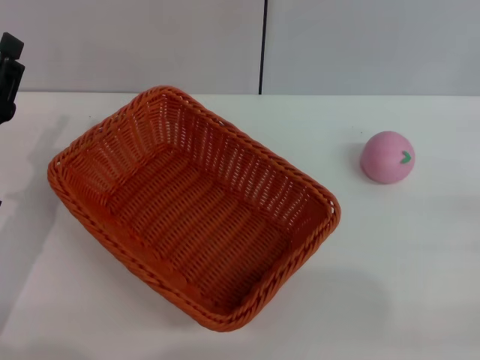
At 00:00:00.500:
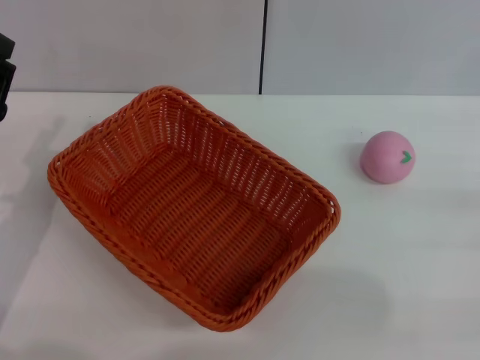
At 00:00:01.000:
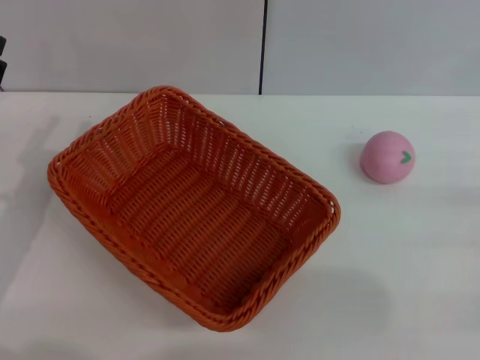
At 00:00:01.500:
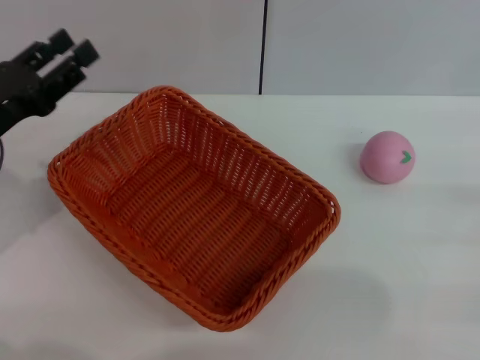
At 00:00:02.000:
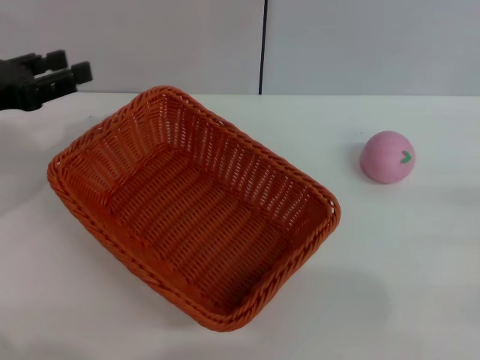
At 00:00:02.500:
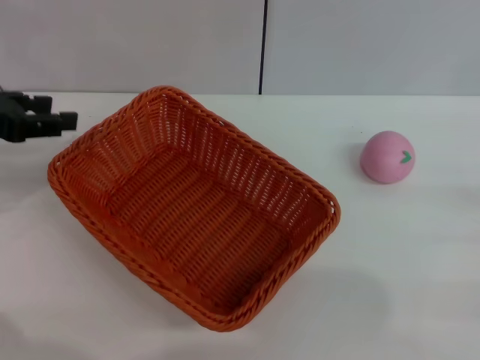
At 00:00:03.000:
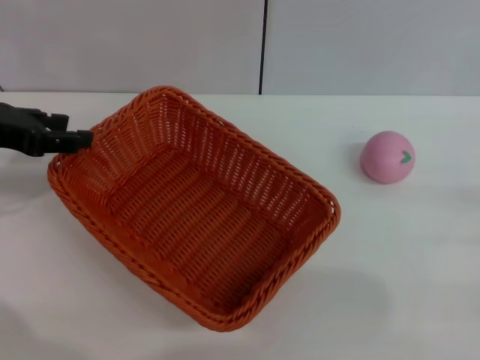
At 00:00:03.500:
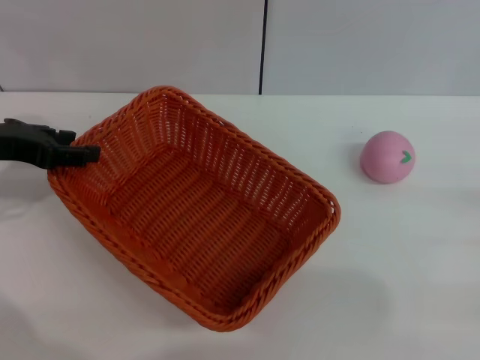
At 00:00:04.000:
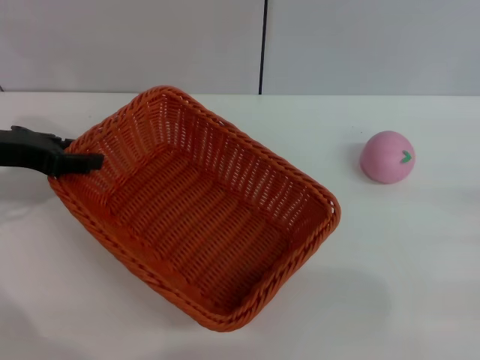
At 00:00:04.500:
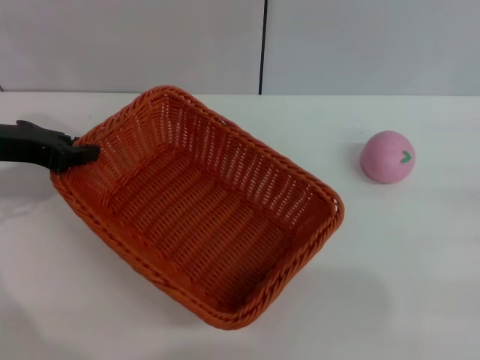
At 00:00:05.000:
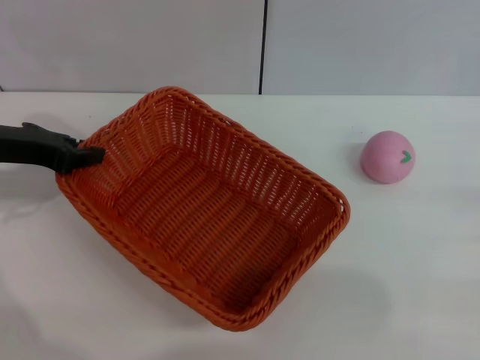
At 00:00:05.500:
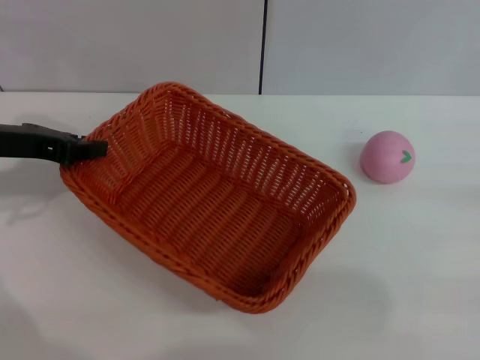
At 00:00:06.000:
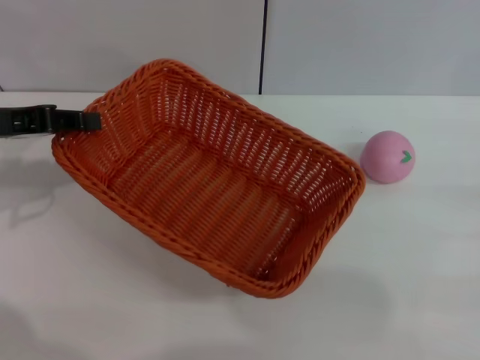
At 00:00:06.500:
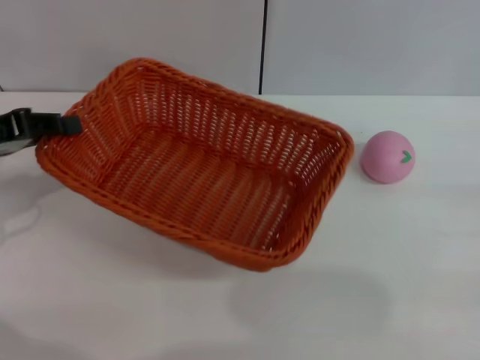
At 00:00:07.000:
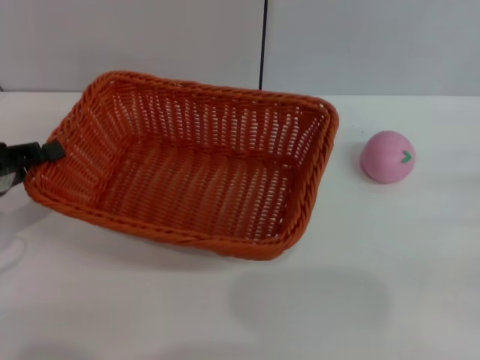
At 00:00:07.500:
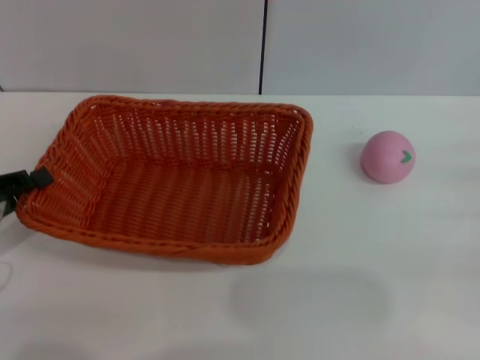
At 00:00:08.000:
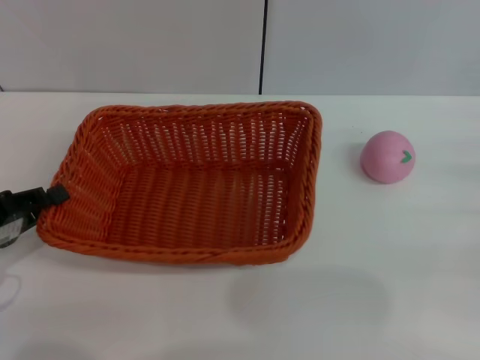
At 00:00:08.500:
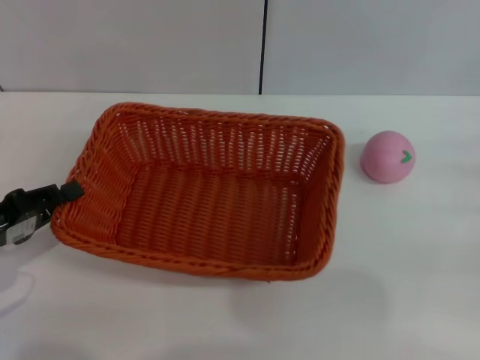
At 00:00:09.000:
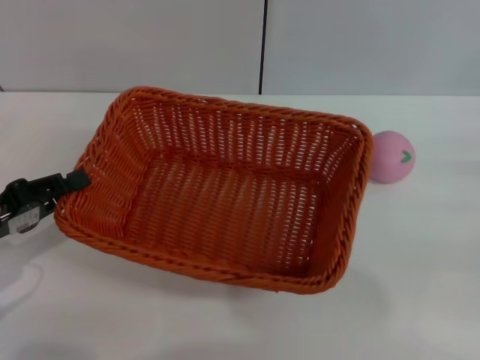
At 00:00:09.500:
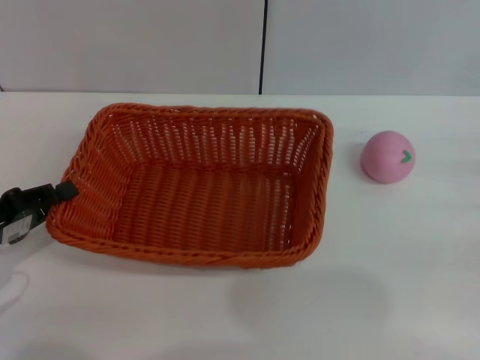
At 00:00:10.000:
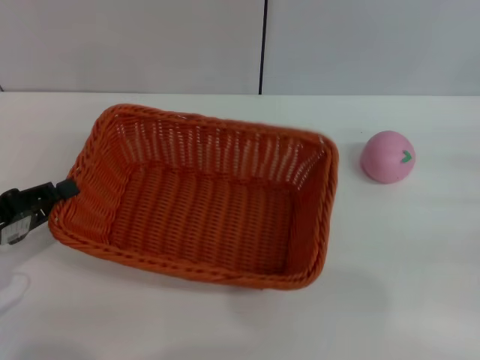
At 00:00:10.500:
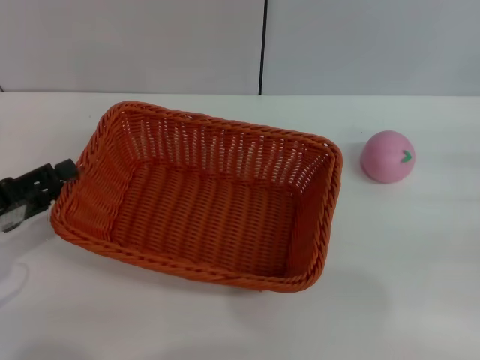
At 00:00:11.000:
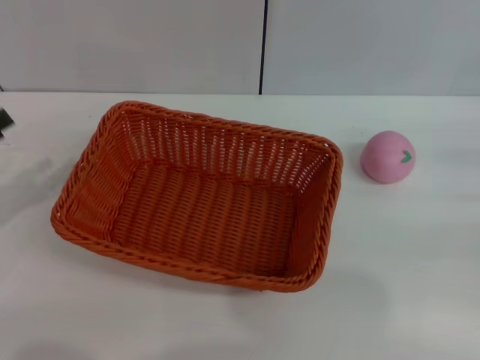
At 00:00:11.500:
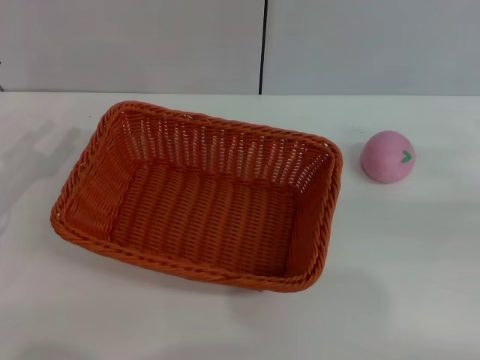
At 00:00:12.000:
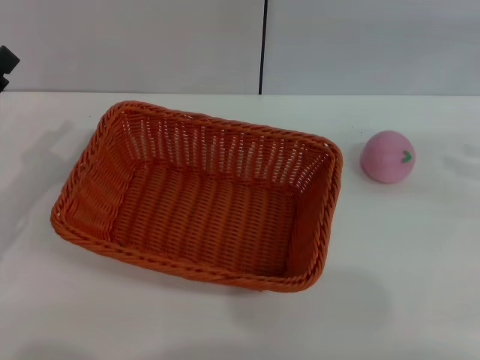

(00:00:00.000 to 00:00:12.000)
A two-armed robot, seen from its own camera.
Step, 00:00:00.000 - 00:00:06.000: Pick up the light basket with the left gripper.
Step, 00:00:06.500 - 00:00:10.500: Place the light basket in the center of view with the right gripper.
00:00:00.000 - 00:00:02.000: The left gripper moves upward and forward, roughly 10 cm.
00:00:04.000 - 00:00:06.000: The left gripper closes.
00:00:06.000 - 00:00:08.000: The left gripper shifts about 15 cm backward and downward.
00:00:08.000 - 00:00:10.000: The grippers stay close to where they were, moving slightly.
00:00:10.000 - 00:00:12.000: The left gripper opens its fingers. Meanwhile the right gripper shifts roughly 15 cm upward and forward.

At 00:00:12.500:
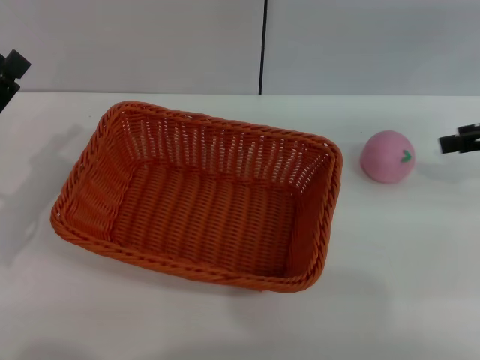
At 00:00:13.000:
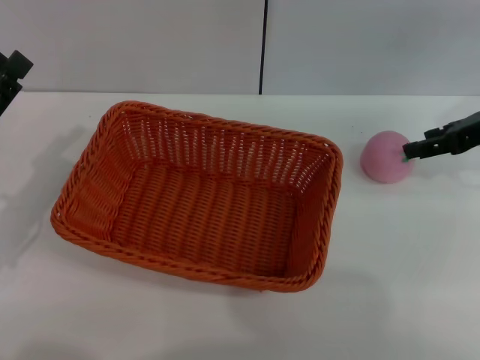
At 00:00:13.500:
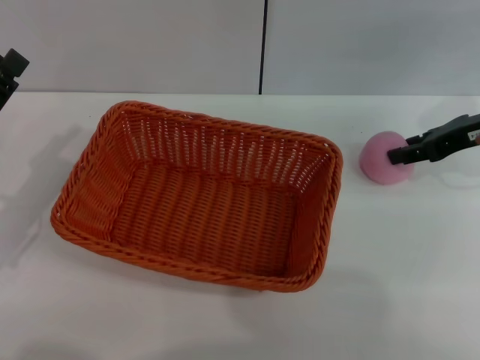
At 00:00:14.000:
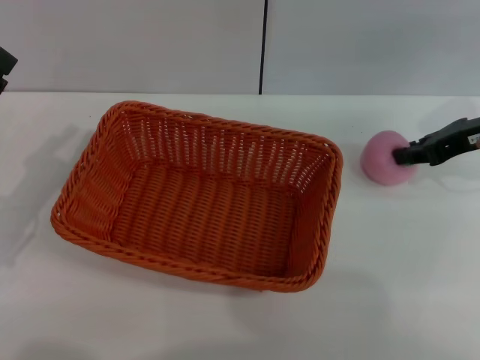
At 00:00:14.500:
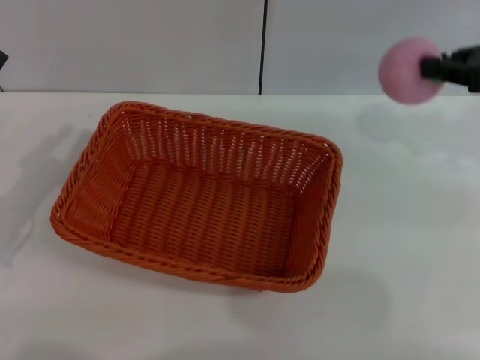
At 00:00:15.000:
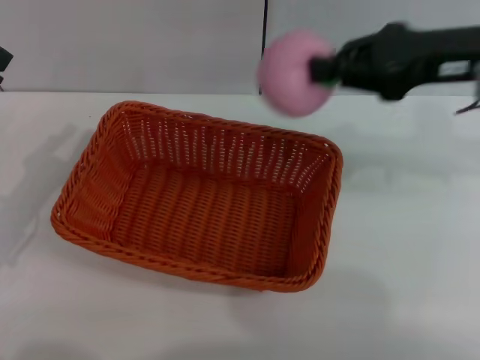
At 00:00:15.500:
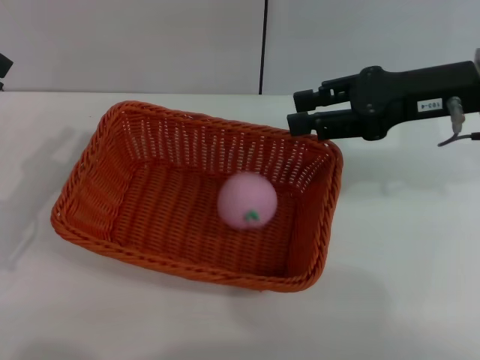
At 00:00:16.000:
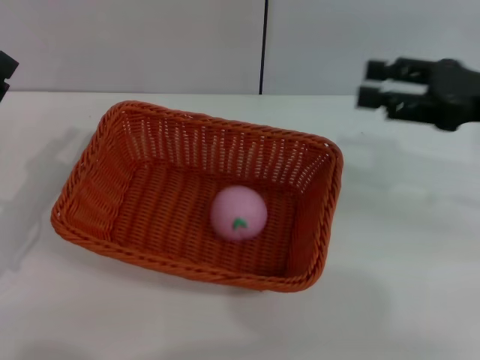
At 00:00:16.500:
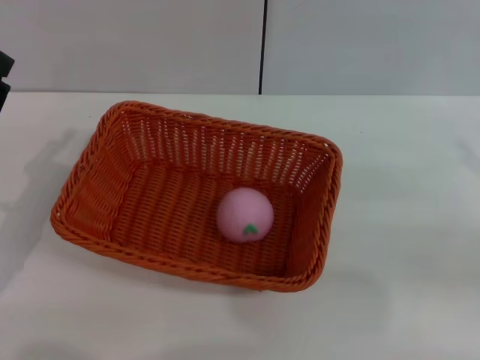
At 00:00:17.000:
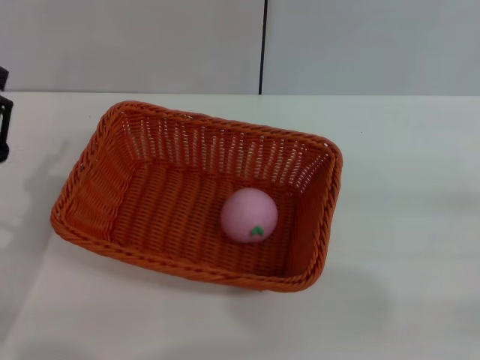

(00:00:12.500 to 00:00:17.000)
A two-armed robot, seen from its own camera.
00:00:12.500 - 00:00:14.500: The right gripper changes place by some 5 cm, and closes its fingers.
00:00:14.500 - 00:00:17.000: The right gripper shifts about 25 cm backward, downward and to the right, and opens, while the left gripper moves some 5 cm.
